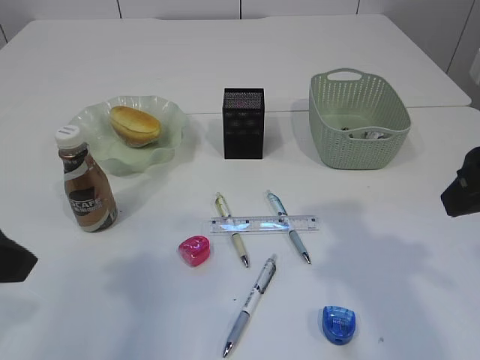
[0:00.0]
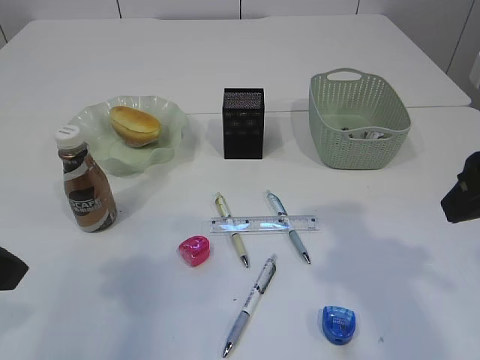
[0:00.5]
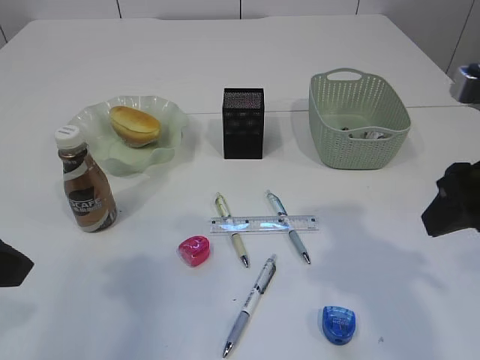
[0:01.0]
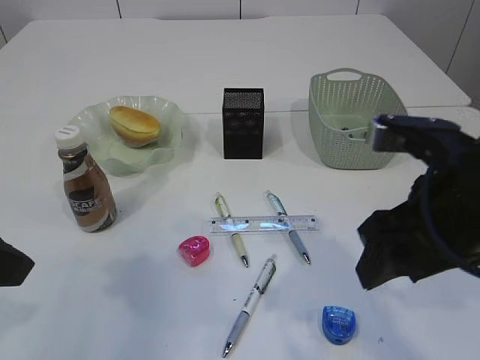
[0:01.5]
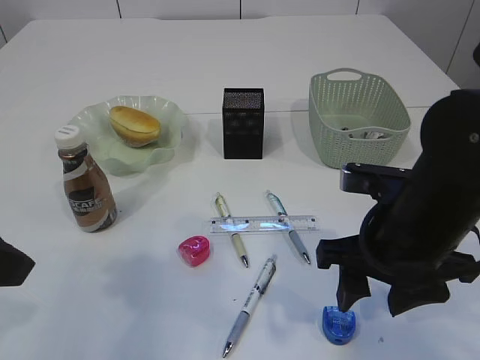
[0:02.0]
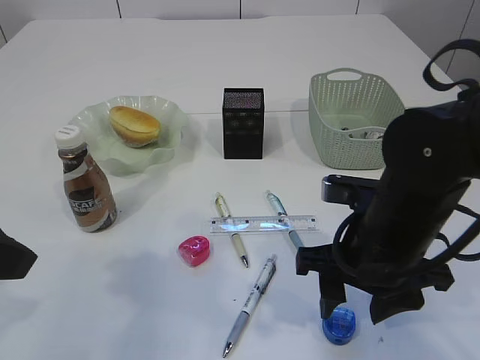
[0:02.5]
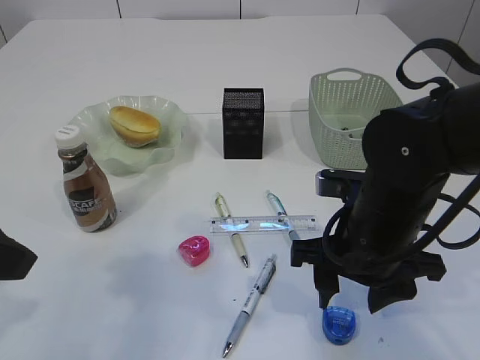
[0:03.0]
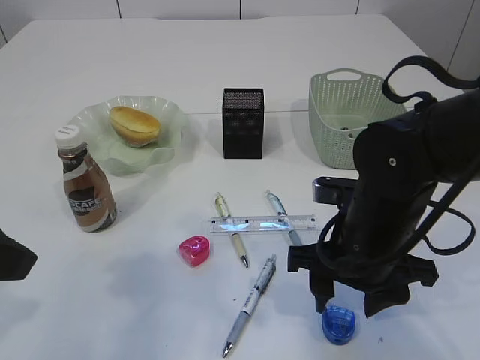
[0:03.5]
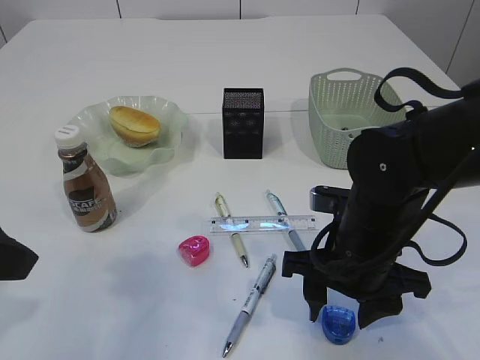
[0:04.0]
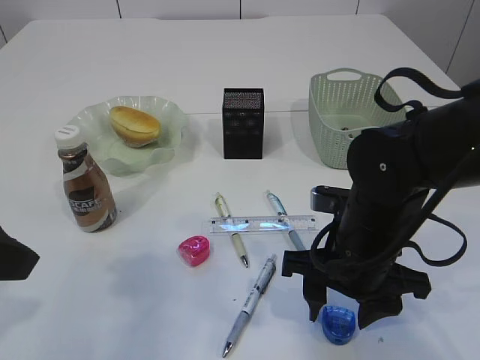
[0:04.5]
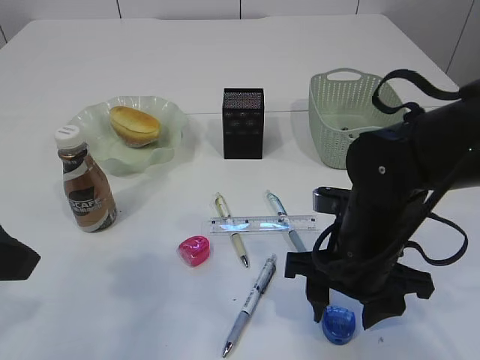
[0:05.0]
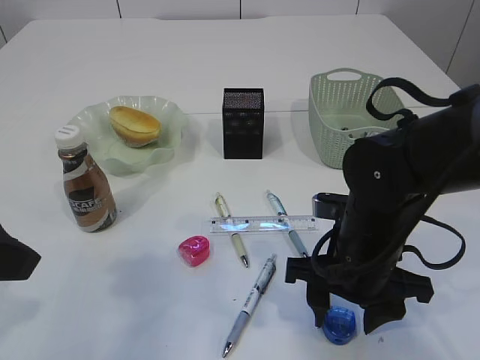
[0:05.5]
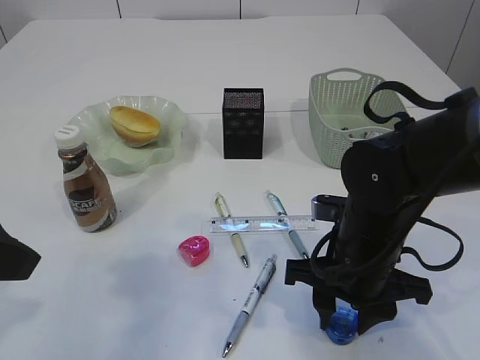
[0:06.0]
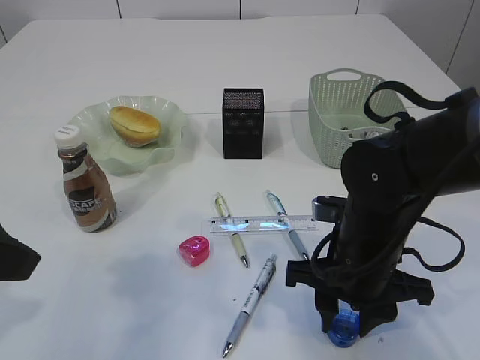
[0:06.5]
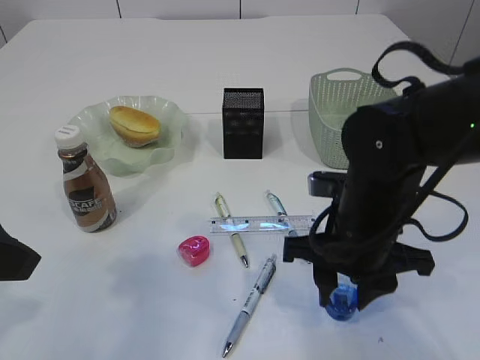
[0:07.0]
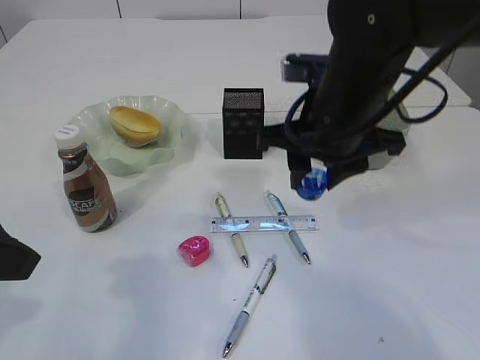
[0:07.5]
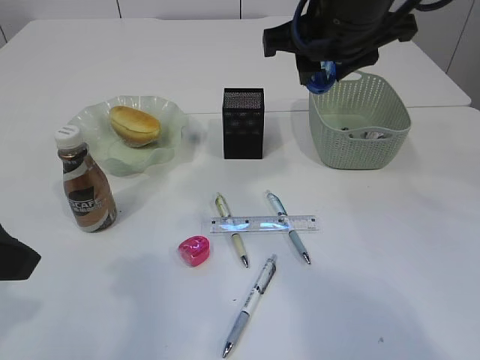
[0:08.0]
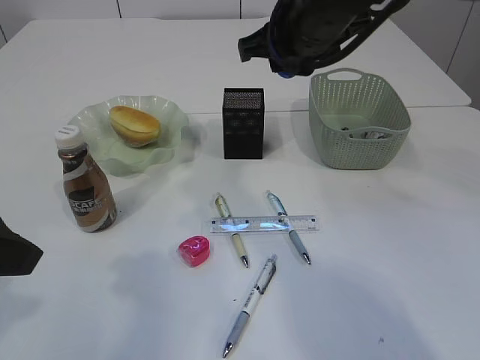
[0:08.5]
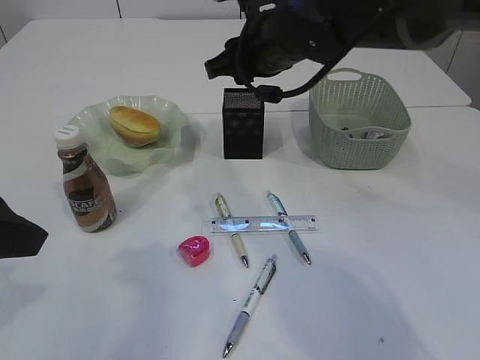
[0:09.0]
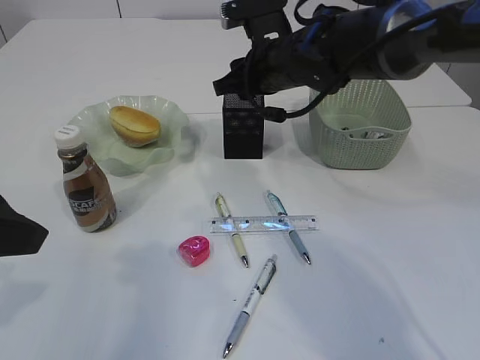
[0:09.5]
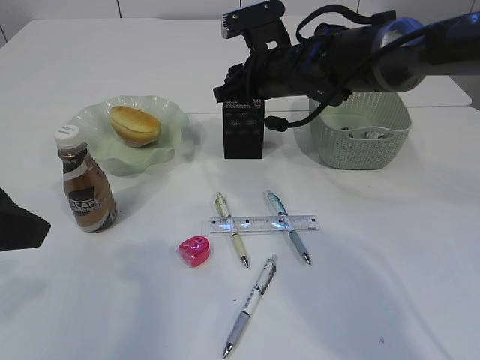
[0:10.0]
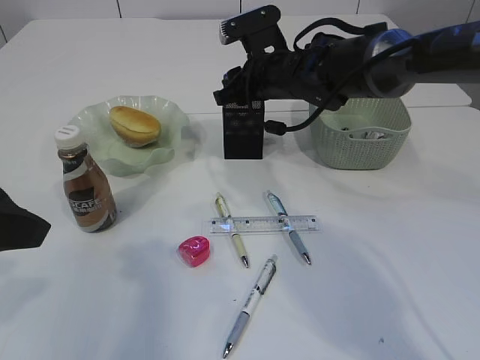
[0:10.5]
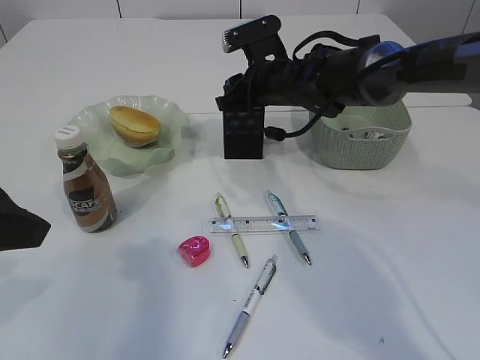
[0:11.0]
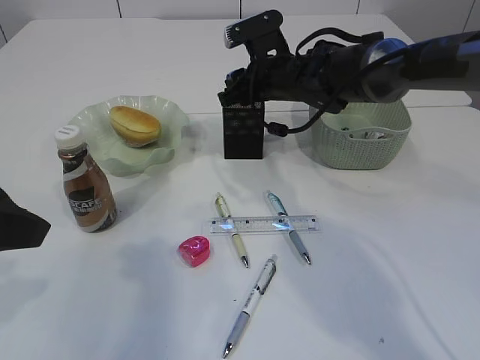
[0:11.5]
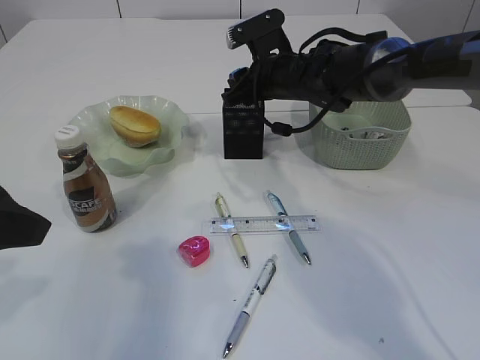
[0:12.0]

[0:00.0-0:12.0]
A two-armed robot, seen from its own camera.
Step, 0.0 to 7.0 s: Pick up the blue pencil sharpener.
0.0 to 2.0 s: The right gripper travels downward and to the left by about 15 cm.
2.0 to 4.0 s: The right gripper changes place by about 5 cm.
4.0 to 6.0 s: Neither gripper changes place.
6.0 to 8.0 s: The right gripper shifts approximately 20 cm upward and forward.
8.0 to 10.0 s: The right gripper heads downward and forward, covering approximately 15 cm.
10.0 to 12.0 s: The grippers stay close to where they were, moving slightly.

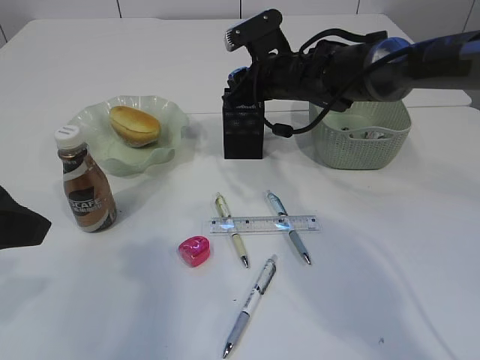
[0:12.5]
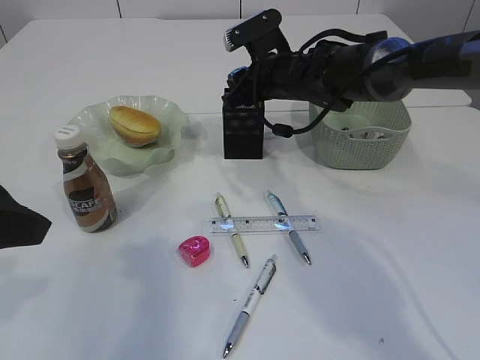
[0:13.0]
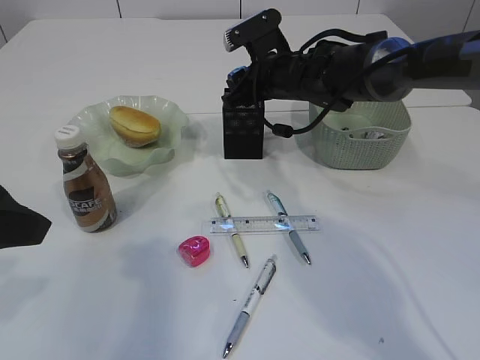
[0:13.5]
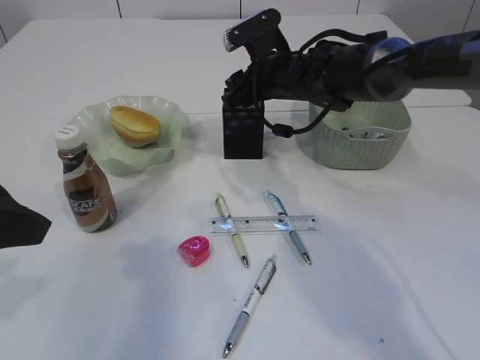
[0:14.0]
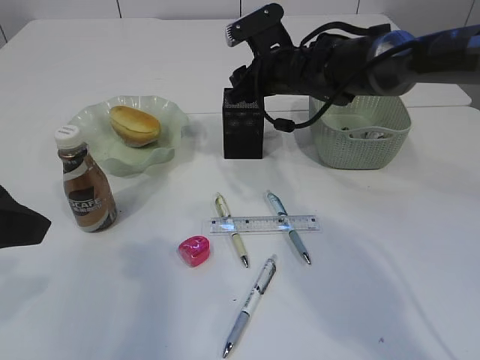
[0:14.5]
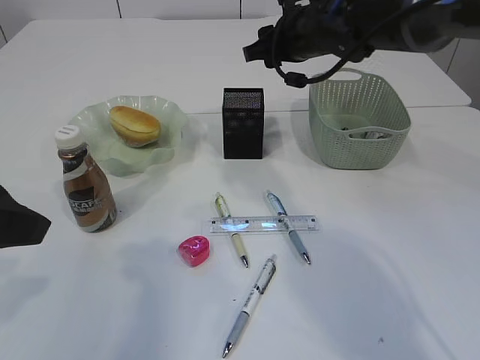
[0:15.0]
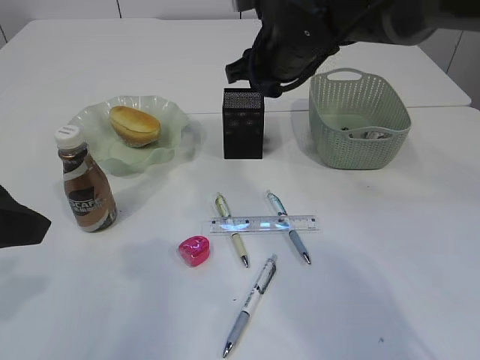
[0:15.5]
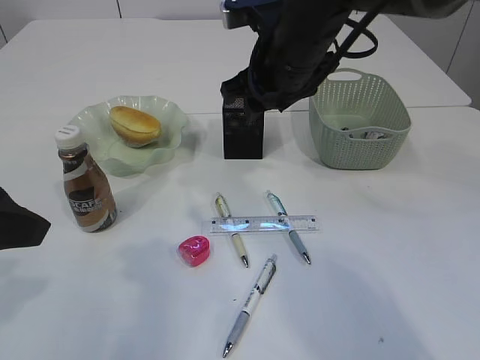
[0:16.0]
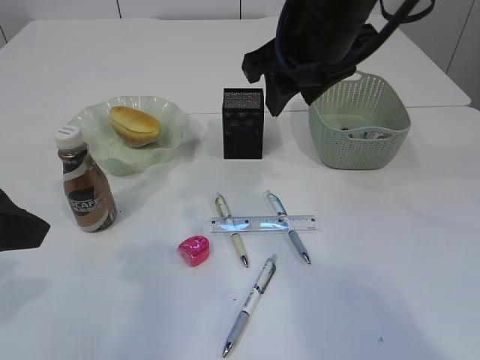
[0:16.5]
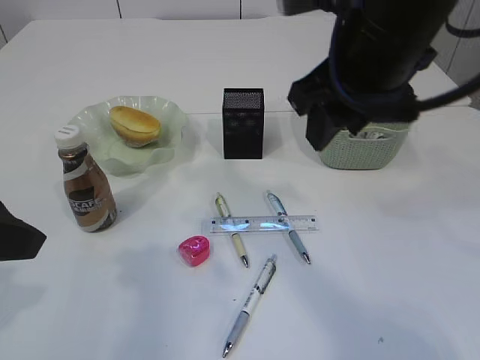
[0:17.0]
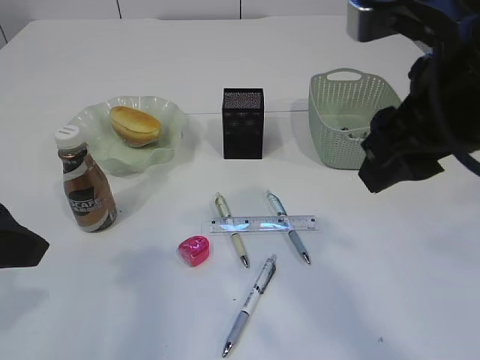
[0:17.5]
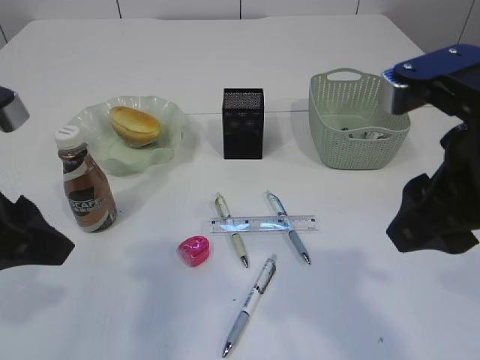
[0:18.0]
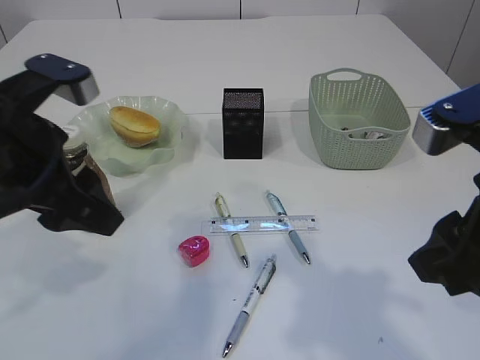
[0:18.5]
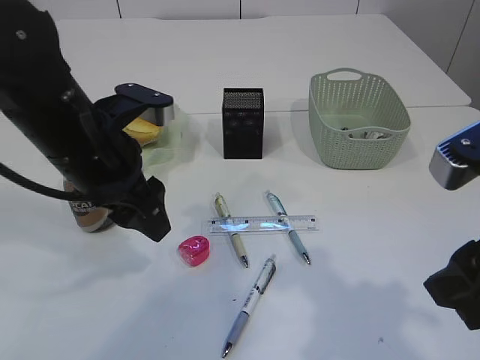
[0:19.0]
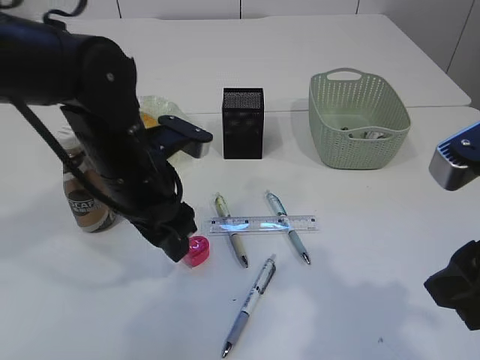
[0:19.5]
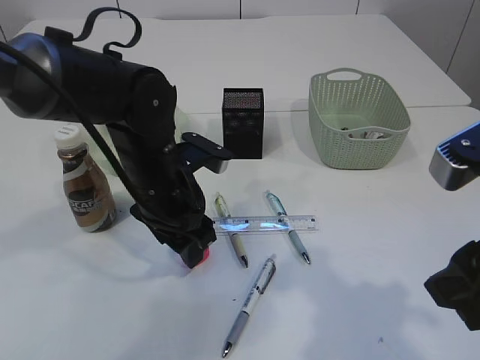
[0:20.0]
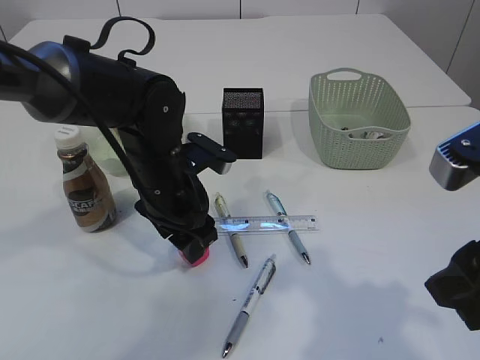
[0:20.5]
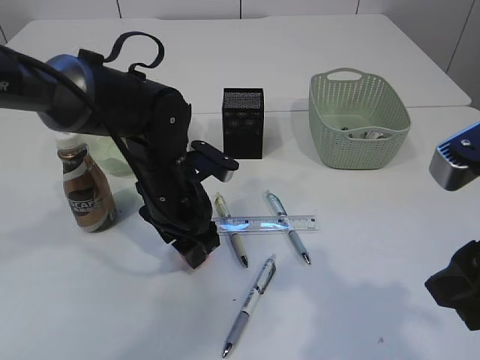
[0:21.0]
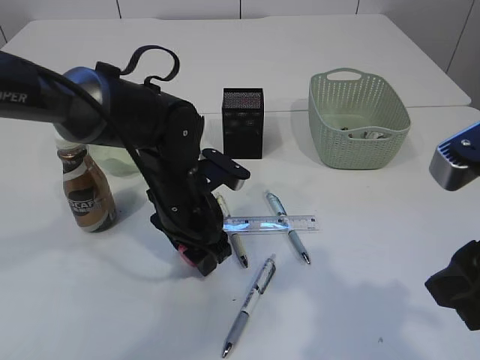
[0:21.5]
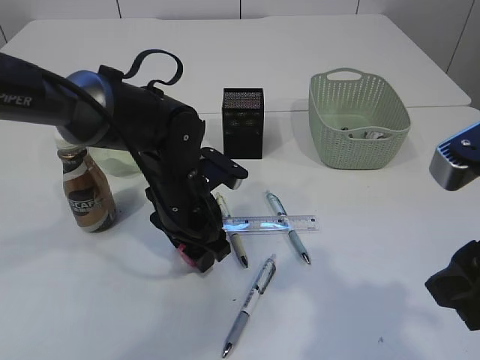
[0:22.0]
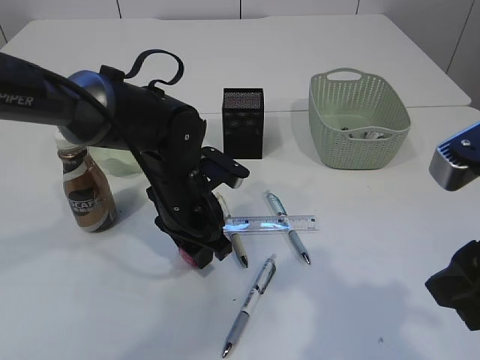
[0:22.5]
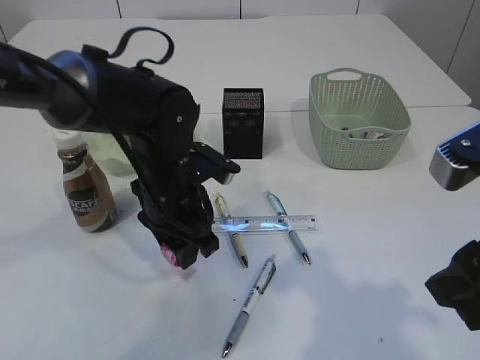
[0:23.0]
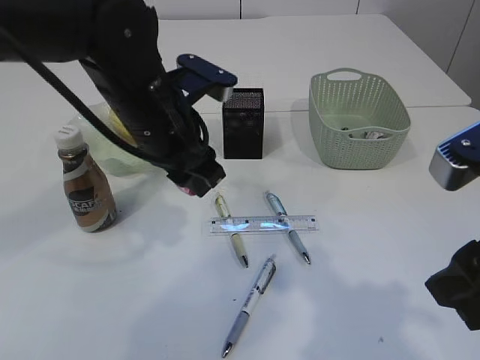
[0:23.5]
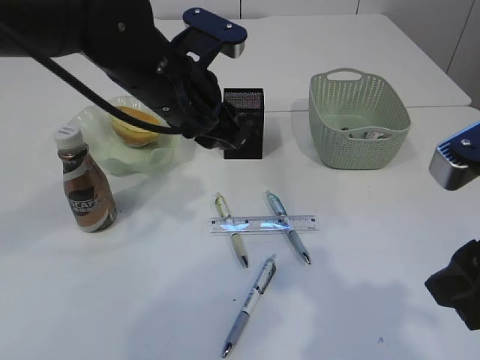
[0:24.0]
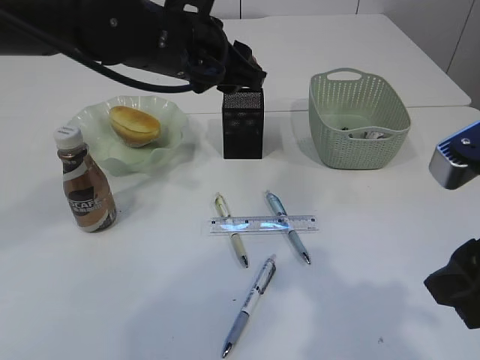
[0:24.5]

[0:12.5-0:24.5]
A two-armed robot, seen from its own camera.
Step, 12.5 to 14.5 s: Place the blue pencil sharpener into the pen holder.
Step, 15.0 to 23.5 s: Pick up the red pencil sharpener.
12.5 to 14.5 s: Both grippers stay put.
14.5 to 16.5 s: The right gripper moves backward and upward, about 20 cm.
16.5 to 18.5 s: The left gripper heads forward and to the right, covering approximately 10 cm; the right gripper travels backward and to the right by about 20 cm.
18.5 to 20.5 s: The left gripper goes roughly 20 cm downward, to the right and forward.
20.5 to 22.5 s: The left gripper closes its fingers.
22.5 to 24.5 s: The left gripper shifts about 15 cm upward.

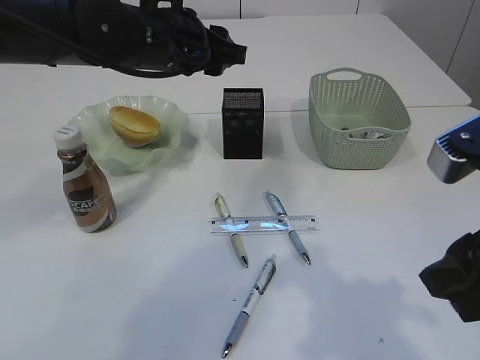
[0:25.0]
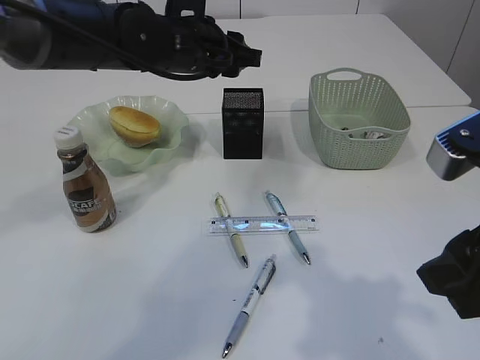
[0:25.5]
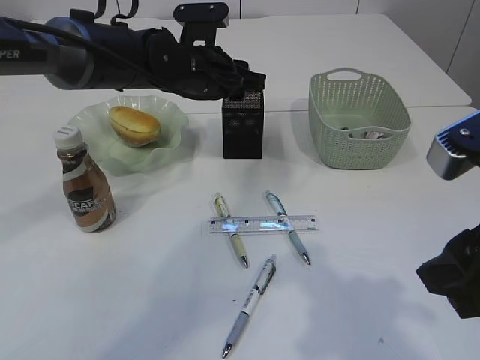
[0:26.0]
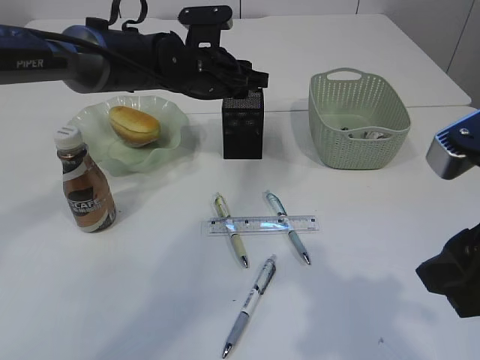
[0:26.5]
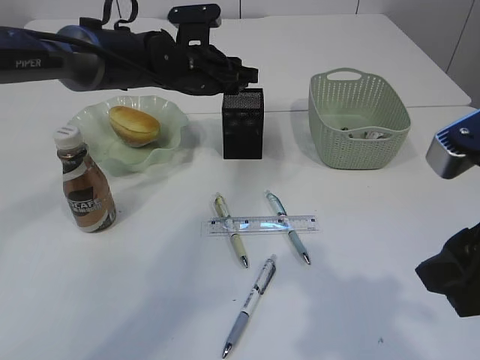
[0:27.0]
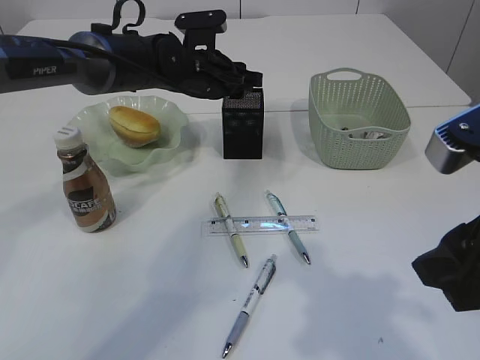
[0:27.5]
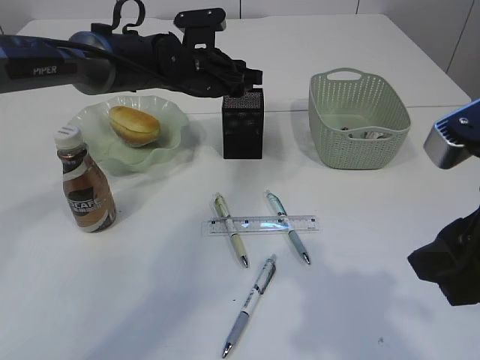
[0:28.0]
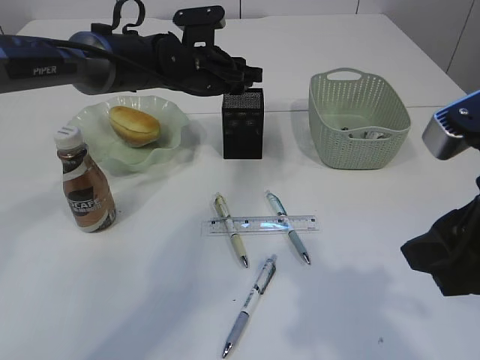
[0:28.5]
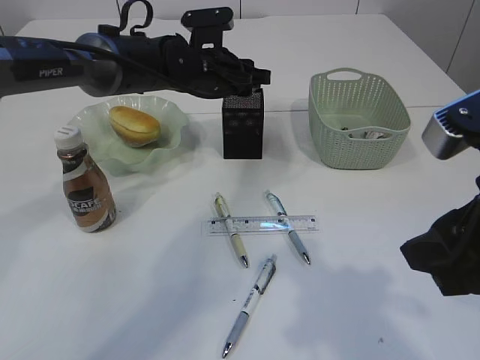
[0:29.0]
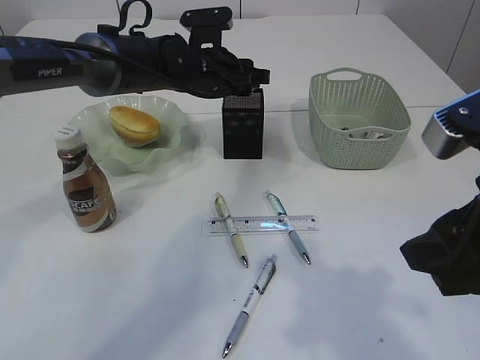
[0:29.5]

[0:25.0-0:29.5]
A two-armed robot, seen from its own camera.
25.0 to 27.0 s: The left gripper is displaced forward and downward by approximately 10 cm.
27.0 to 29.5 s: The grippers move only a little.
